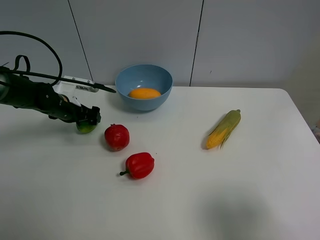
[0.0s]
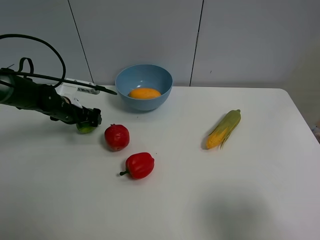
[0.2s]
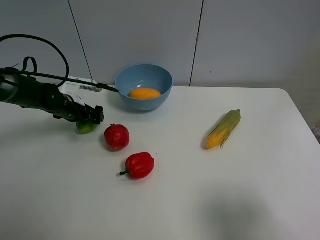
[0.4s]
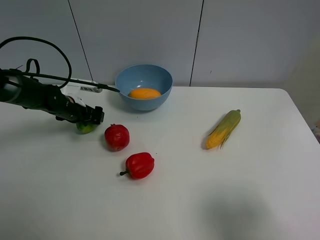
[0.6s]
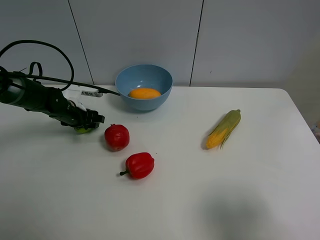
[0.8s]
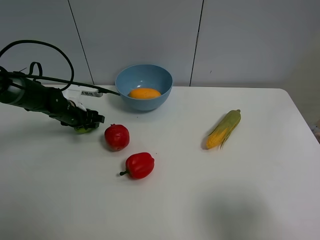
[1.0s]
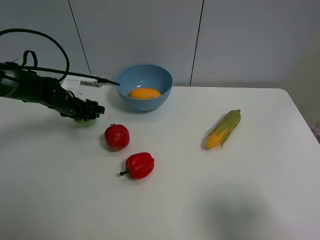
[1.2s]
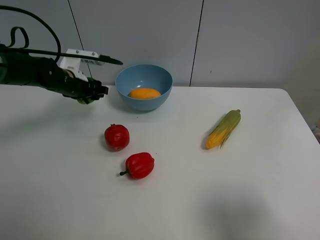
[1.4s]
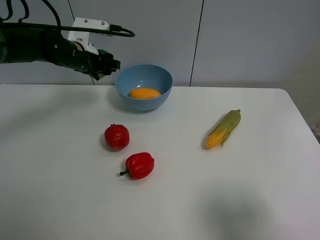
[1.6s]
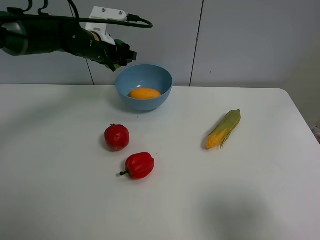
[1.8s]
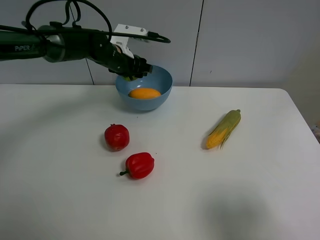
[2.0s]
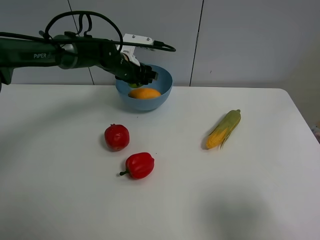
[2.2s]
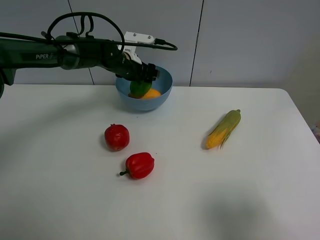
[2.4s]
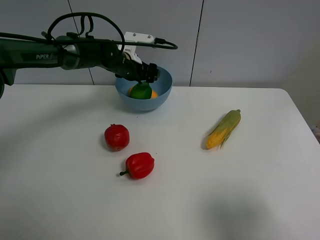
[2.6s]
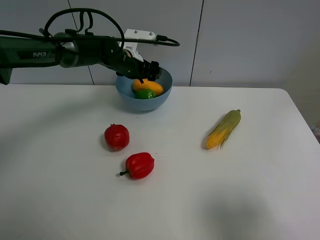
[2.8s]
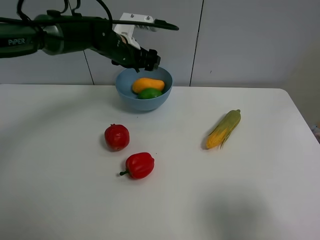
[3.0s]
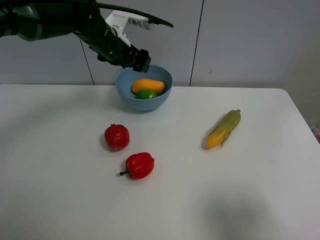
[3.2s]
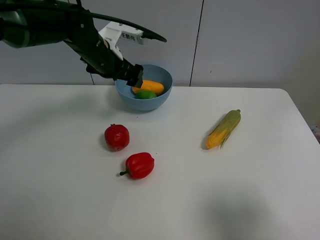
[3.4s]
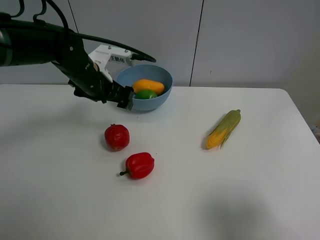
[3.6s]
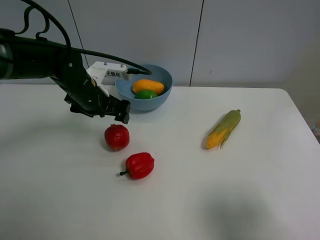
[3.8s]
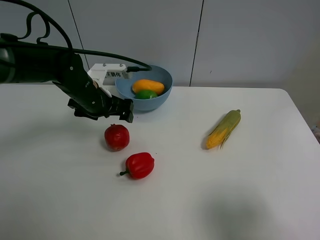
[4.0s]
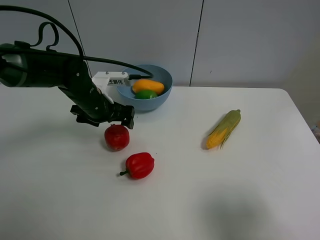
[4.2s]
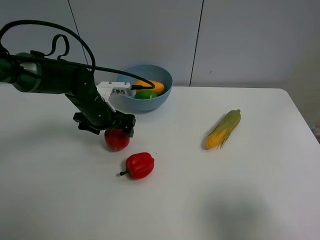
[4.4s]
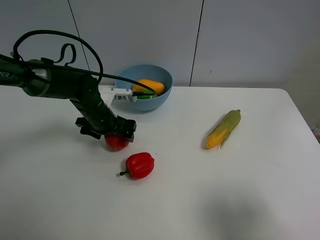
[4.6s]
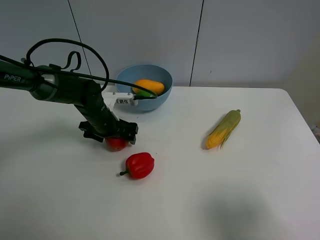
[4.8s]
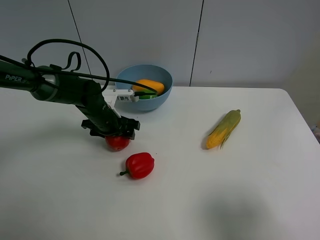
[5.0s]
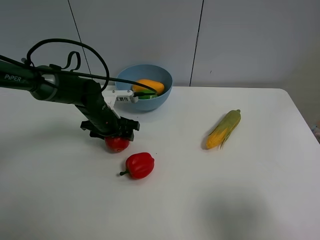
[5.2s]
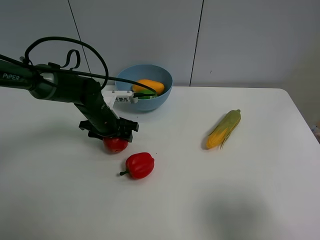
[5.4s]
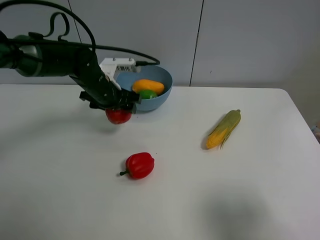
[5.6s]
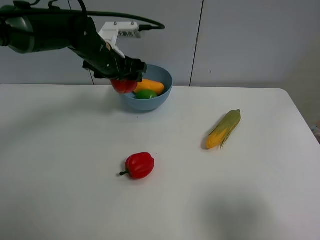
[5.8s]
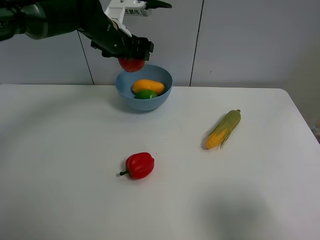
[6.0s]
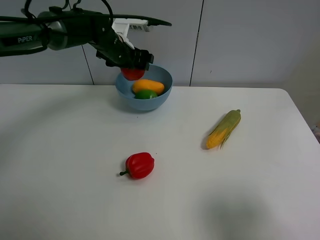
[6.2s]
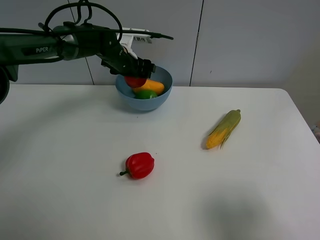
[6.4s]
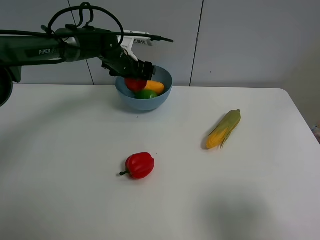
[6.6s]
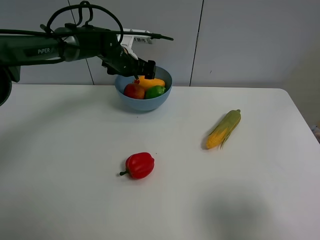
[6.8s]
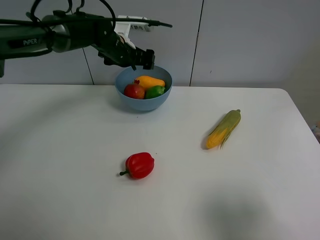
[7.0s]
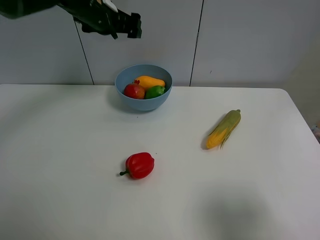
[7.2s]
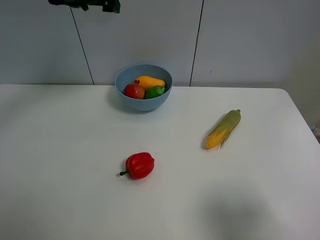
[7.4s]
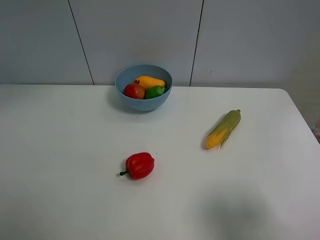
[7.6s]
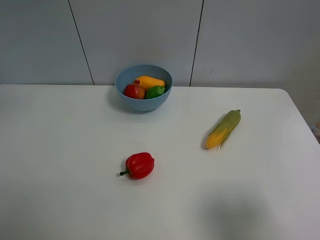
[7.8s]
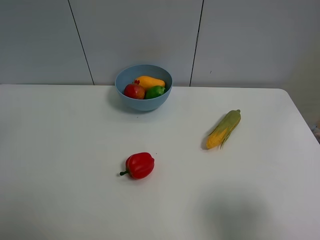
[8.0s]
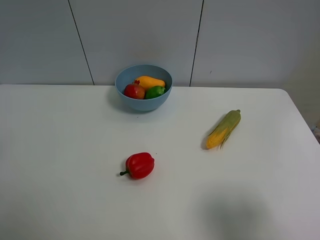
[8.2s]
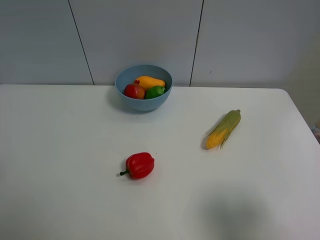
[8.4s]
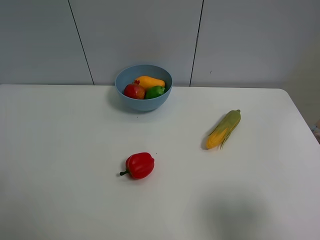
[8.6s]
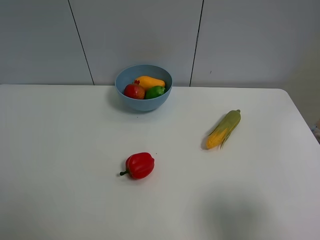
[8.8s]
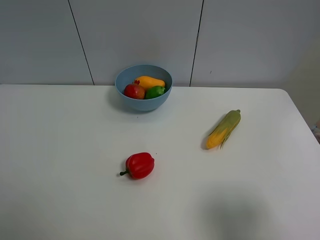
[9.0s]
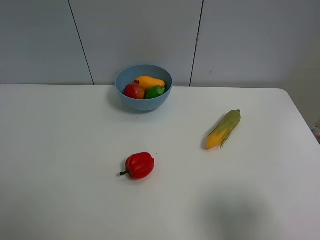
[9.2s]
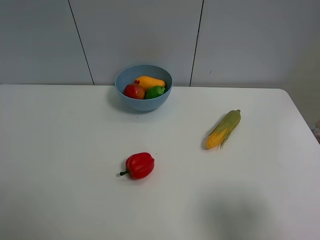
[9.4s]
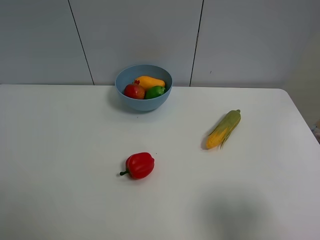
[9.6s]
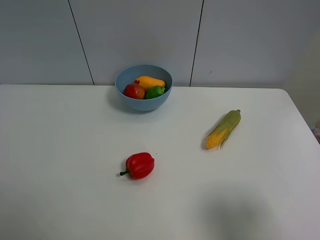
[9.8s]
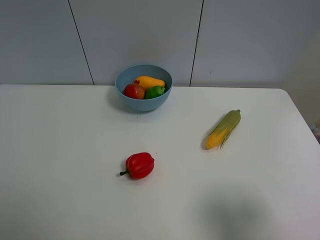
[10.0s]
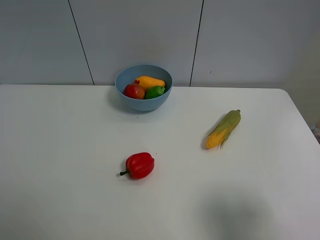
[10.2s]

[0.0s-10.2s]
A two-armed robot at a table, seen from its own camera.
Task of the whole recording: Put the three fruits on the table into a bowl.
Step, 1.0s to 2.6s: Place the green lemon in the blue bowl with left gripper.
Step, 2.8s to 5.0s: Grasp the pomegranate with left gripper.
Step, 5.2s to 6.8s: Place the pomegranate in the blue bowl with left gripper.
0.0s to 1.4s: The left gripper travels upward by some 10 cm, and closes.
1.4s to 3.0s: The left gripper travels to the right and upward by about 15 cm, and opens its fingers.
3.0s to 4.4s: The left gripper is displaced downward and backward by some 15 cm, and opens up.
4.4s to 5.8s: The left gripper travels upward and forward by some 15 cm, and closes up.
5.8s to 7.2s: The left gripper travels upward by approximately 10 cm, and opens.
7.2s to 8.8s: The left gripper is displaced backward and to the left by some 40 cm.
